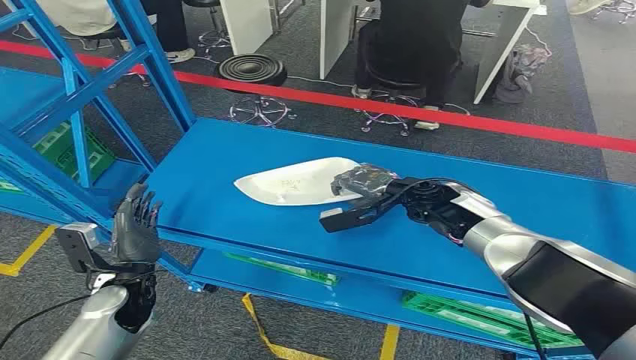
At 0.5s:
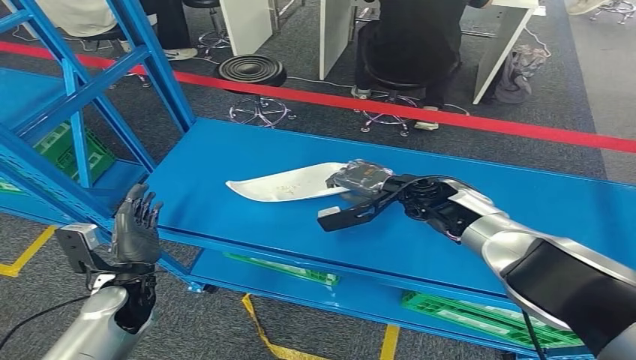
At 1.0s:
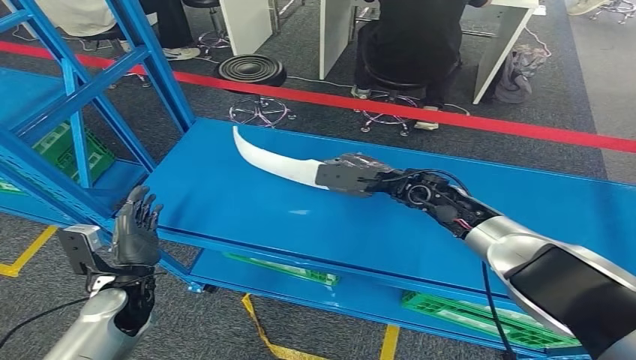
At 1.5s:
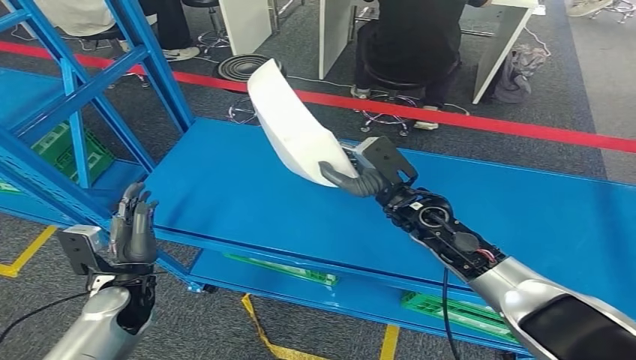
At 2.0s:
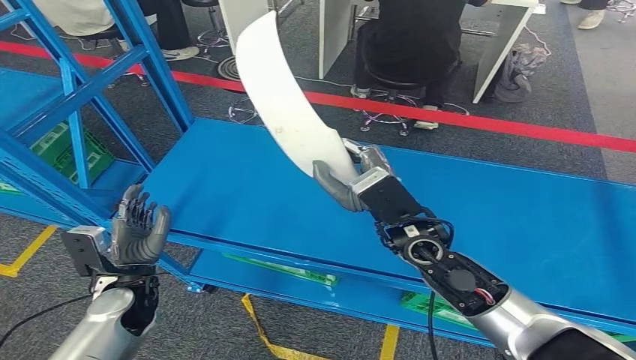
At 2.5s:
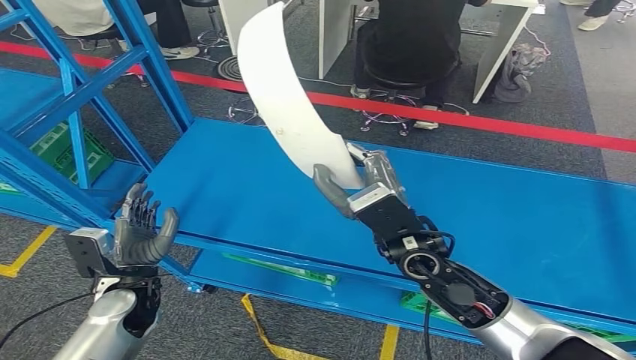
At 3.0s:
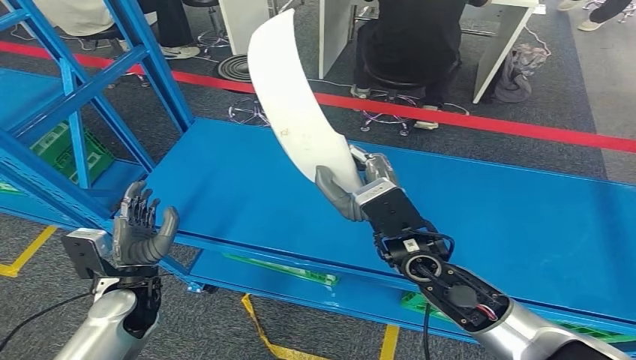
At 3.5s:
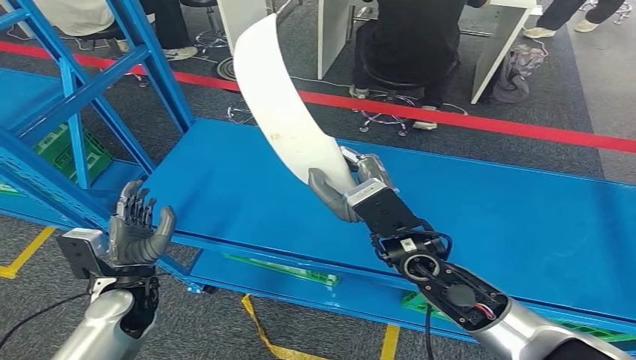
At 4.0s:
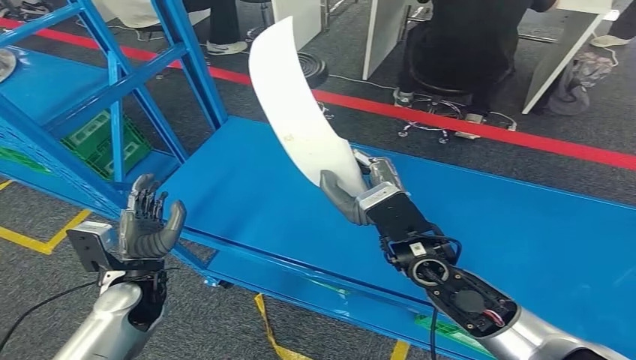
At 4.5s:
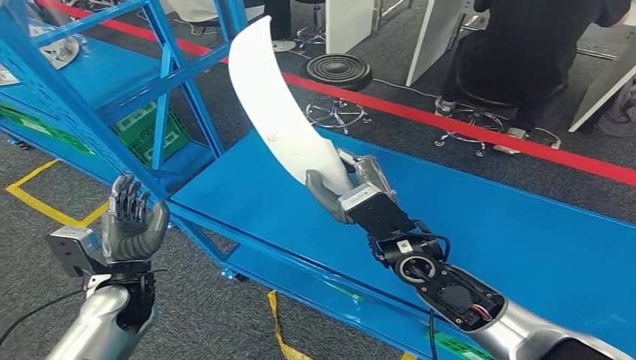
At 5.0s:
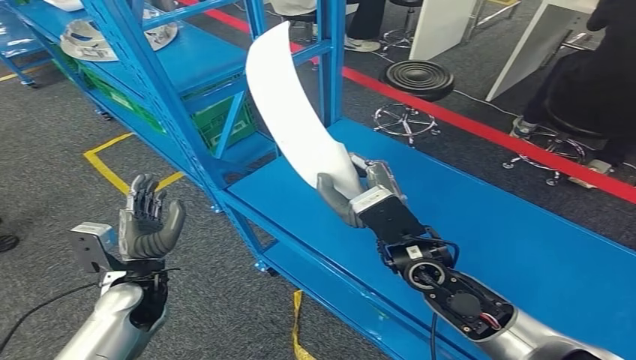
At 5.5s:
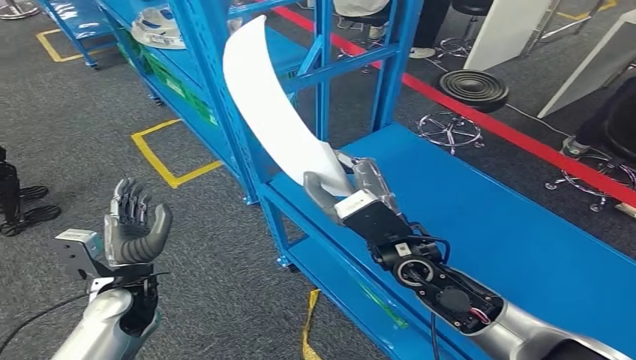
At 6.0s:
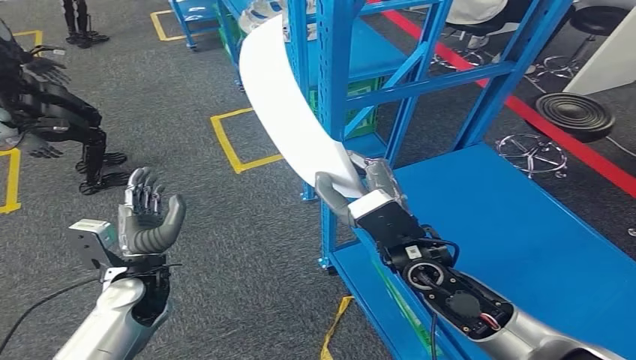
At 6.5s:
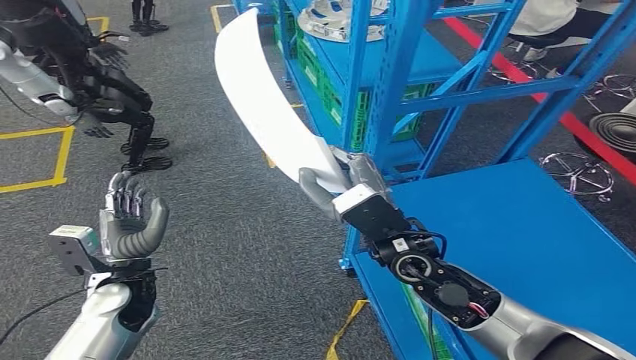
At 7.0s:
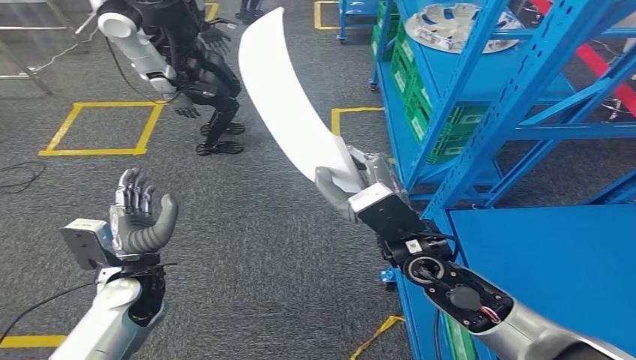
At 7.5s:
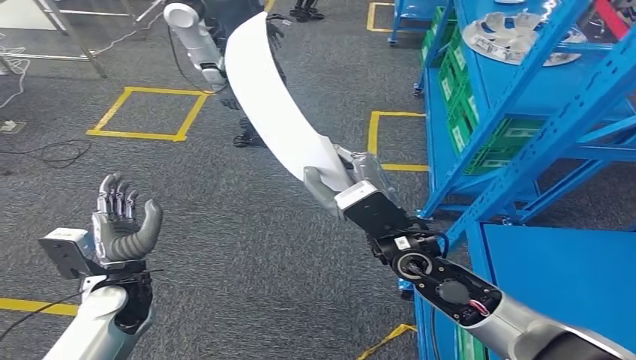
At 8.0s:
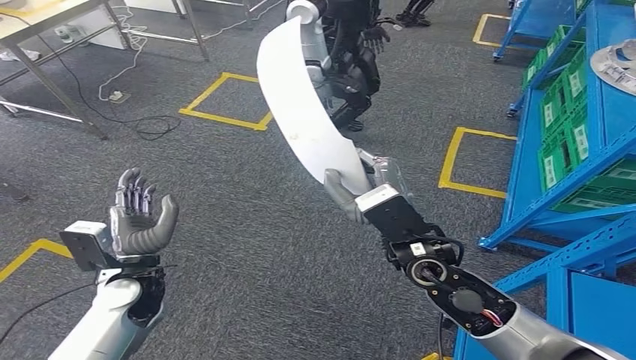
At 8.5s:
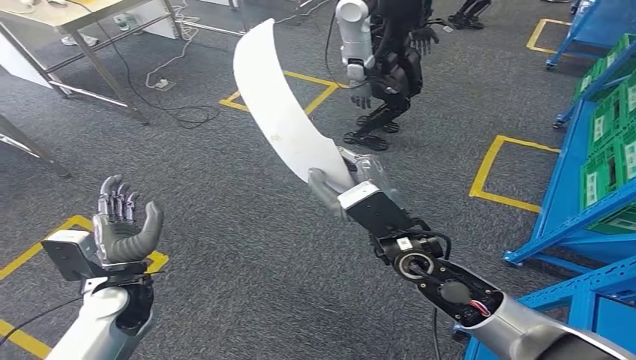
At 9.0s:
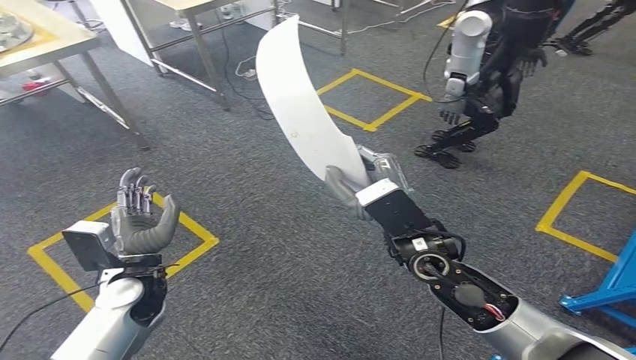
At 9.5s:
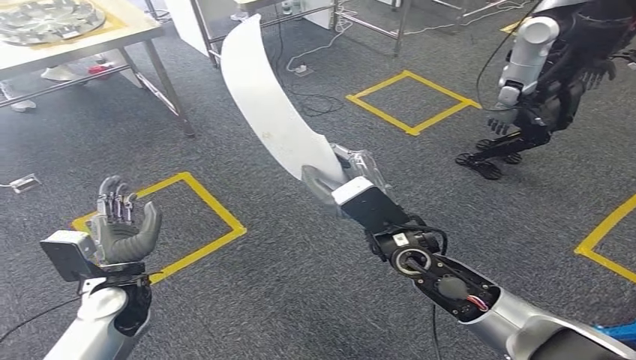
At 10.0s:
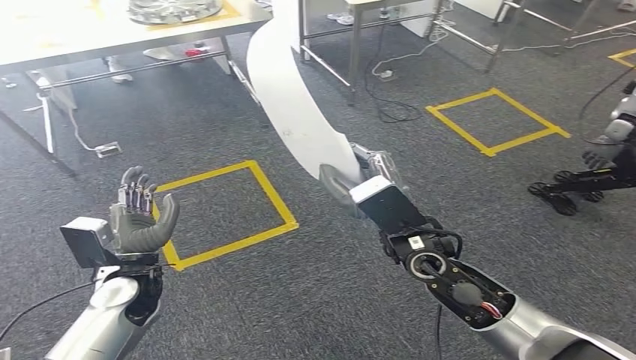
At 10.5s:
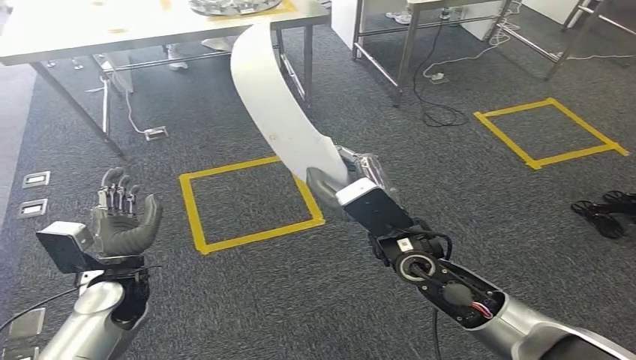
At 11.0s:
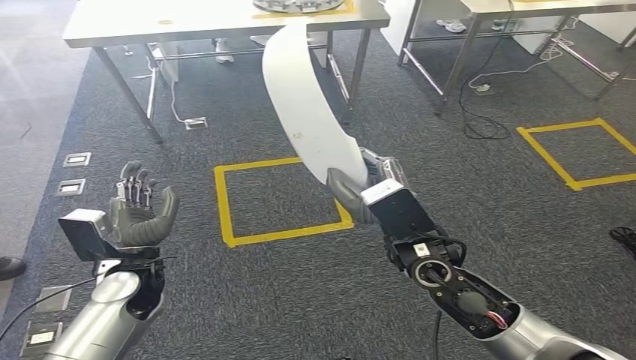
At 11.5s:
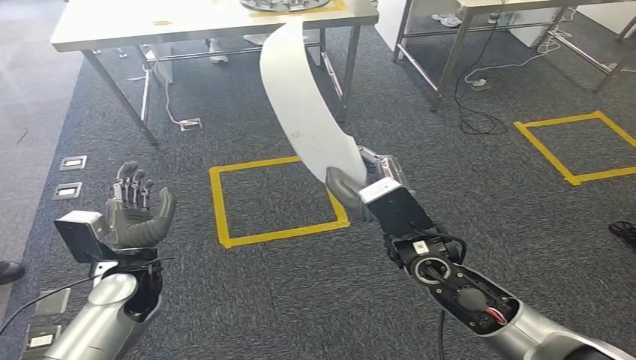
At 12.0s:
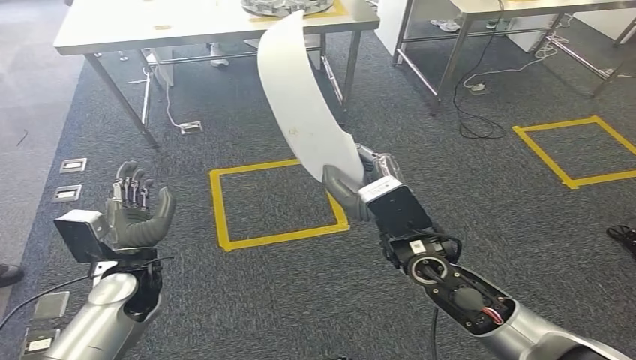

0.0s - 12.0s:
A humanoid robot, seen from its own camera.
Step, 0.0s - 4.0s: Take small components from the rack.

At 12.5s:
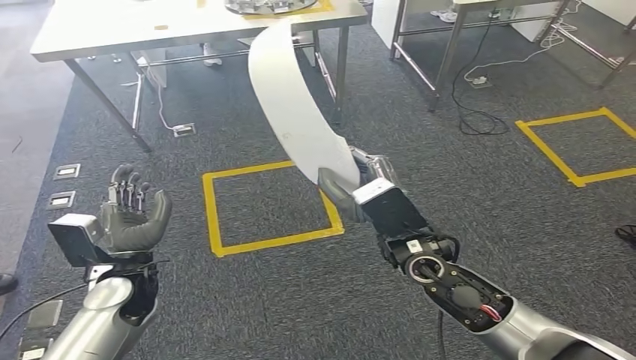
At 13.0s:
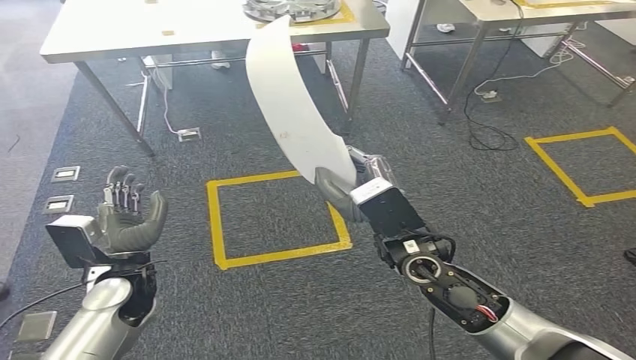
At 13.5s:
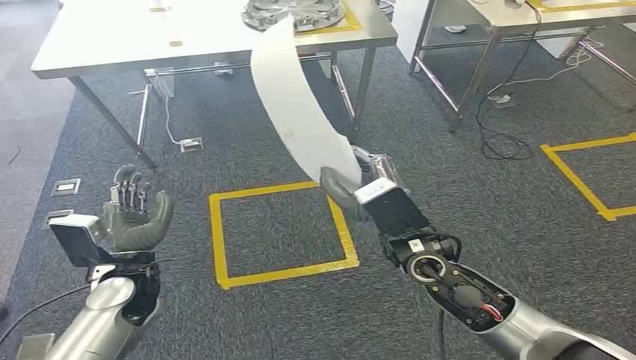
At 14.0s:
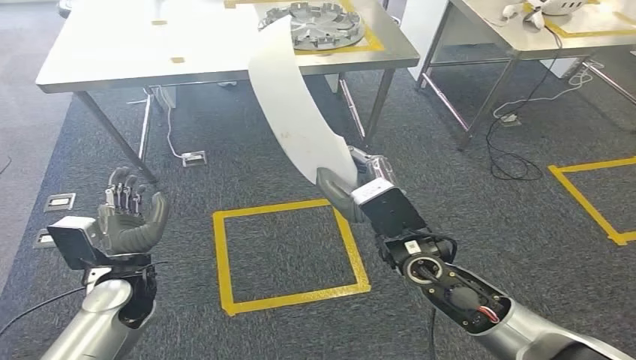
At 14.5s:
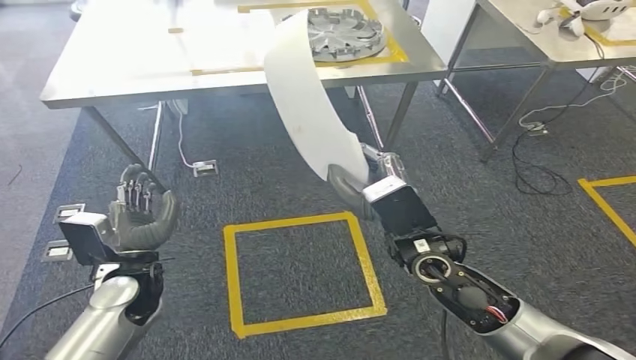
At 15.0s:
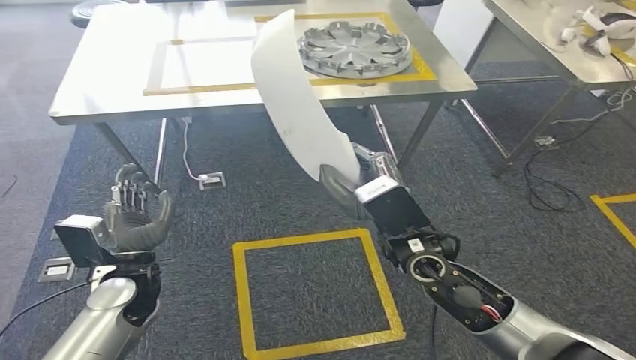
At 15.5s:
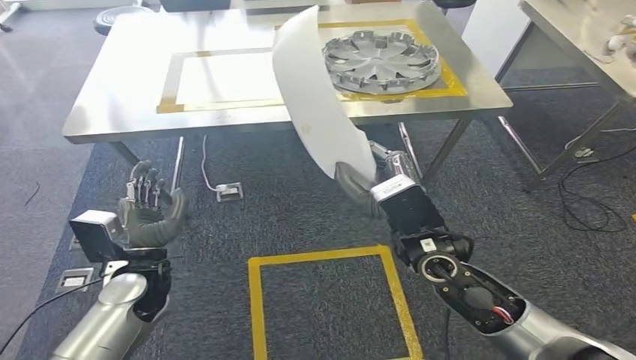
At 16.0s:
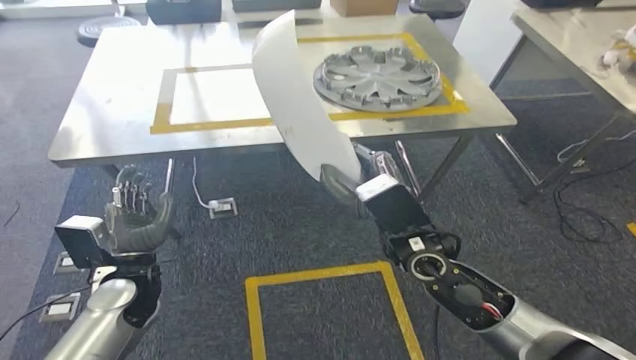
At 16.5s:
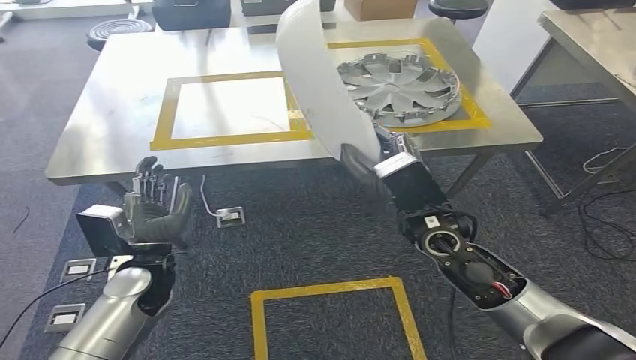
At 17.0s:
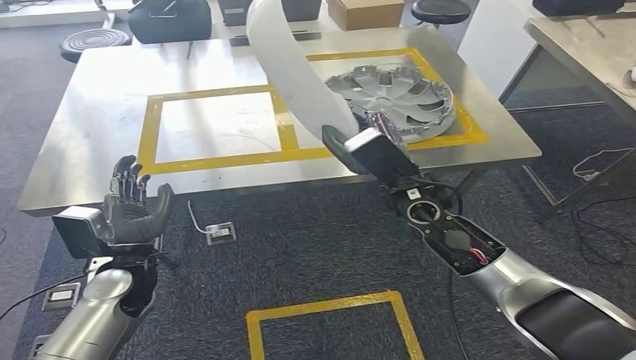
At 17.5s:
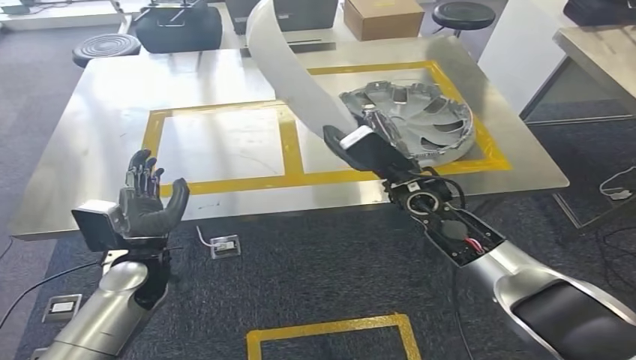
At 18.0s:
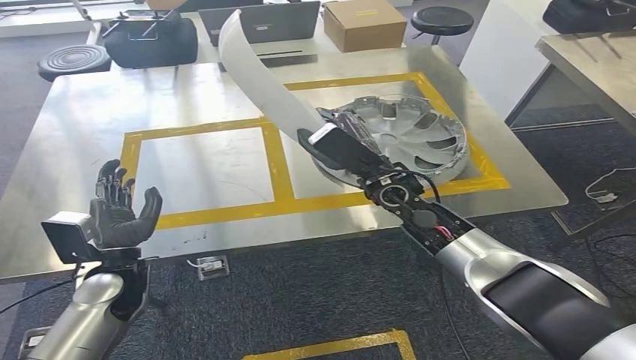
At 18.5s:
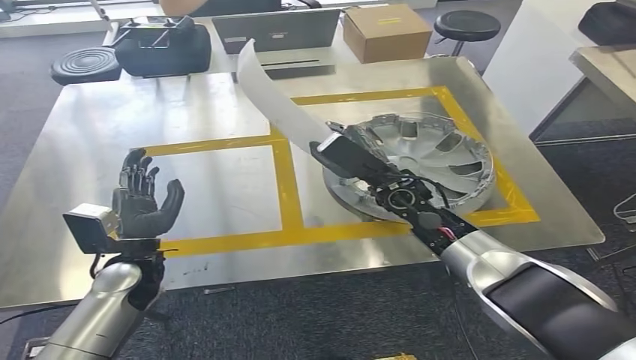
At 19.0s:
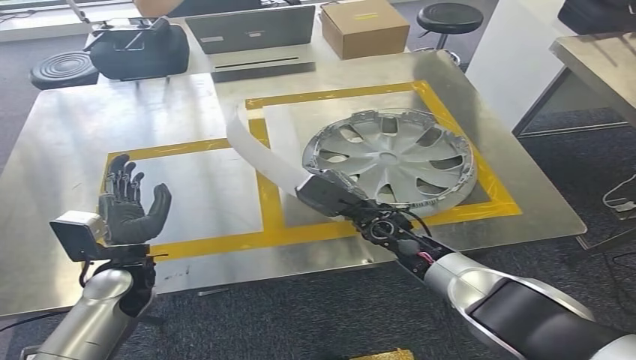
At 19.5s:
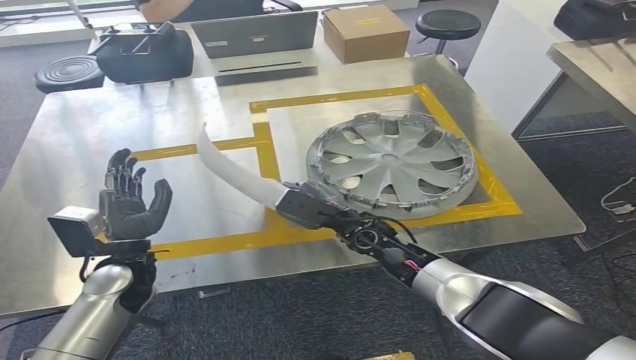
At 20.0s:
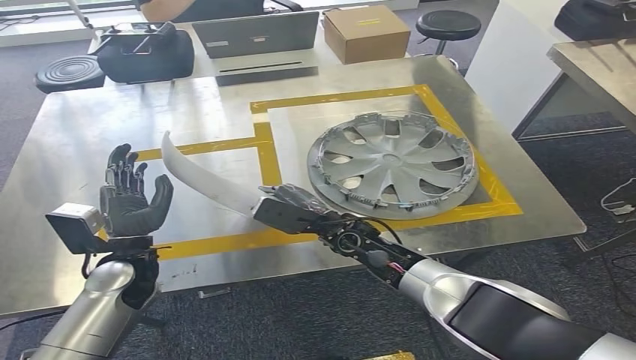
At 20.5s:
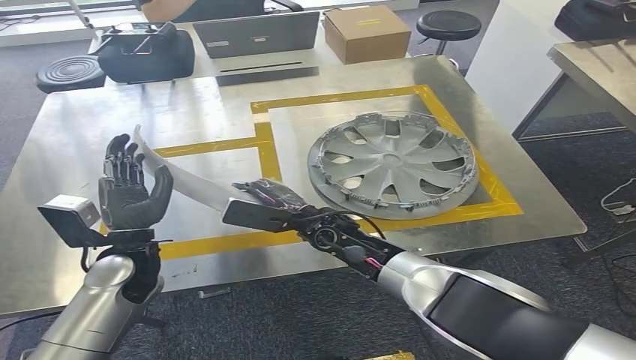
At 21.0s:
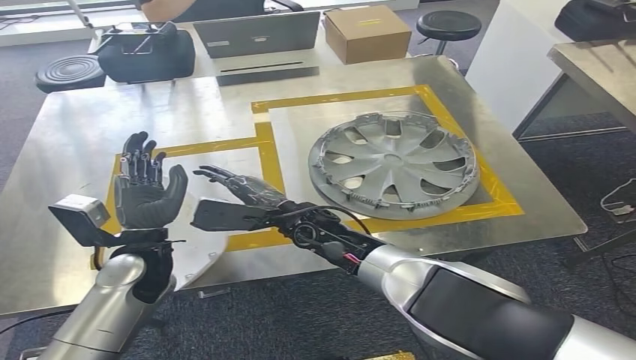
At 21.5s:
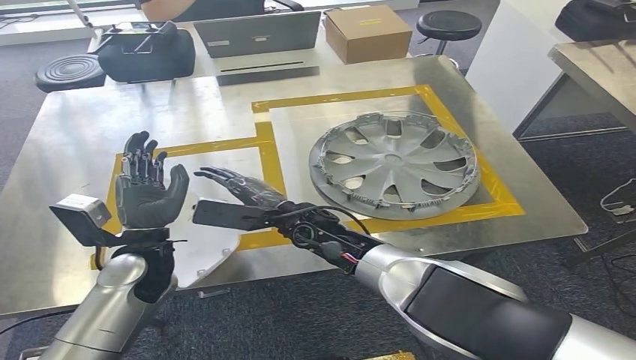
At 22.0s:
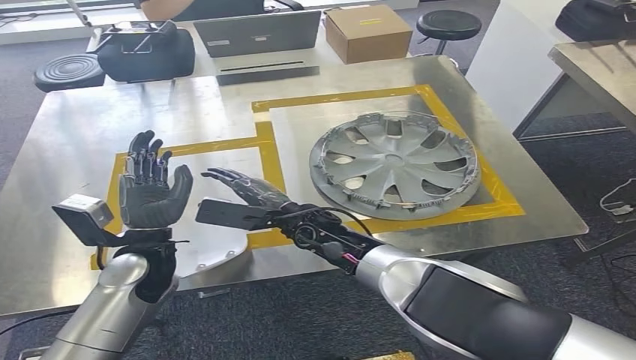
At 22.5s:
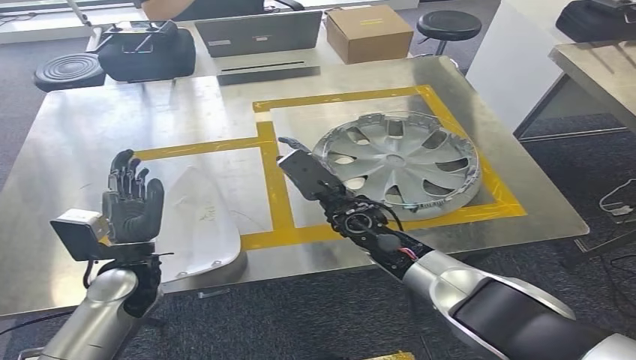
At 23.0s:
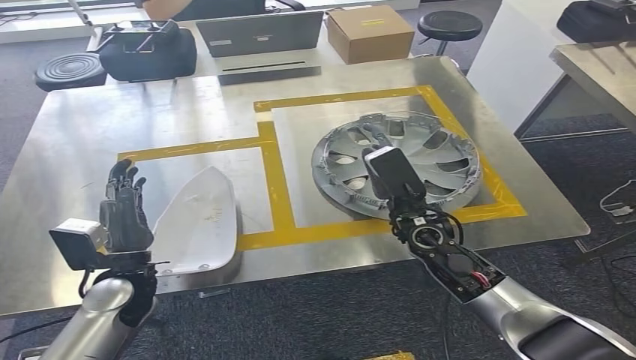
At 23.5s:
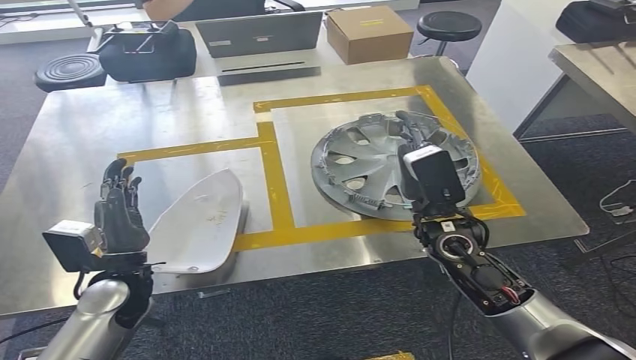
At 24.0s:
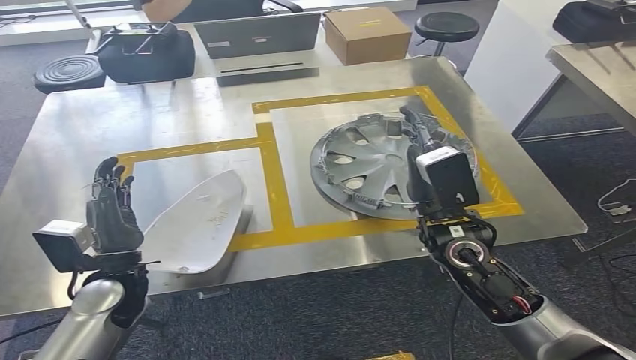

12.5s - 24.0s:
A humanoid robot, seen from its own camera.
Step, 12.5s - 17.0s: Move the small parts to the workbench.
20.0s - 22.0s: The right hand is displaced to the left by about 5 cm.
